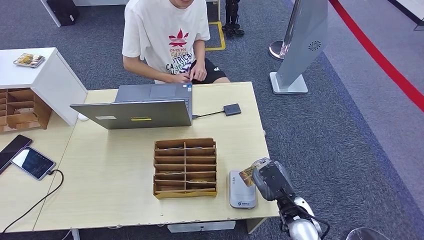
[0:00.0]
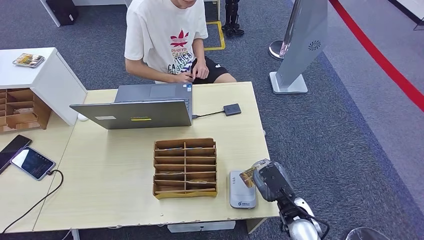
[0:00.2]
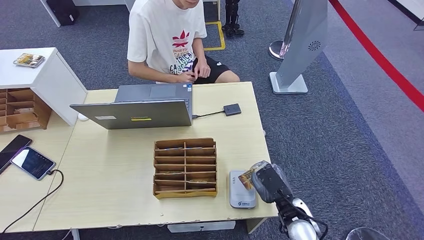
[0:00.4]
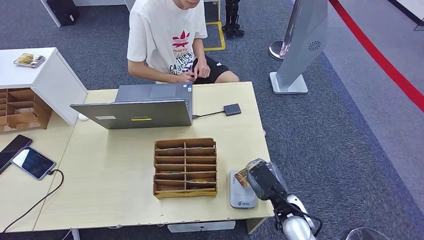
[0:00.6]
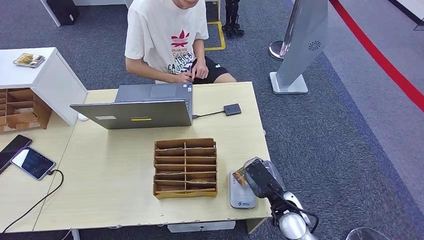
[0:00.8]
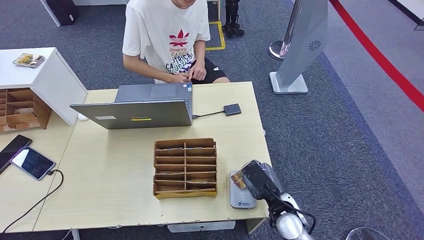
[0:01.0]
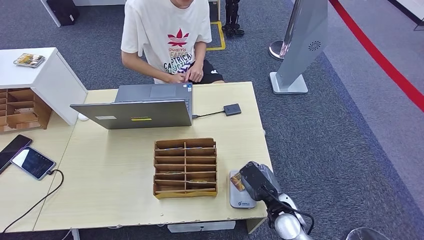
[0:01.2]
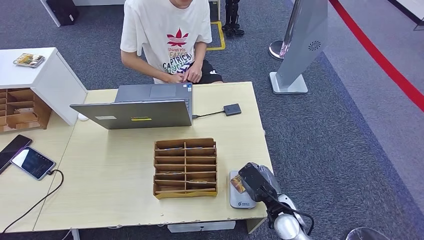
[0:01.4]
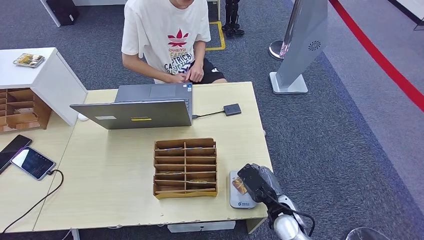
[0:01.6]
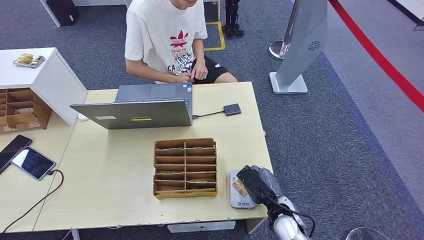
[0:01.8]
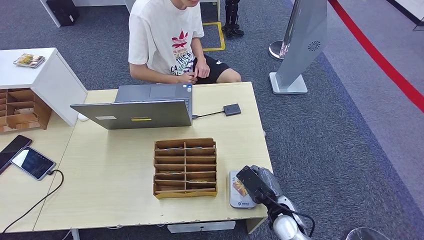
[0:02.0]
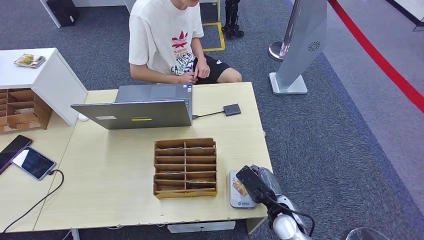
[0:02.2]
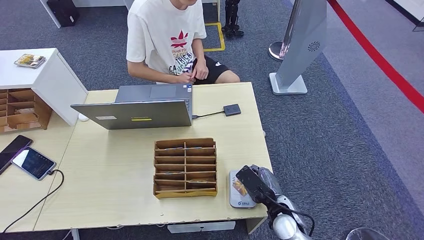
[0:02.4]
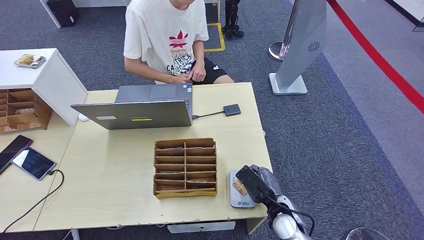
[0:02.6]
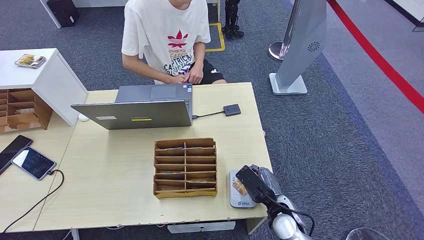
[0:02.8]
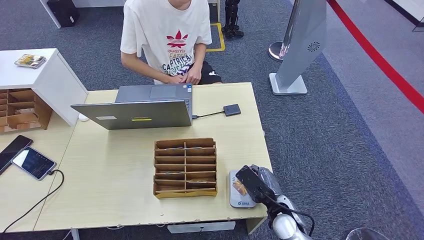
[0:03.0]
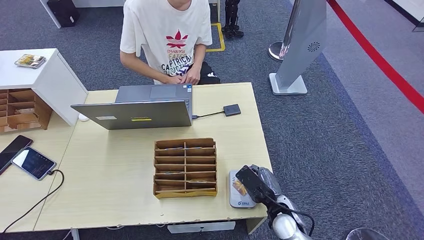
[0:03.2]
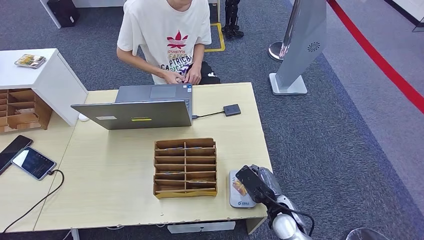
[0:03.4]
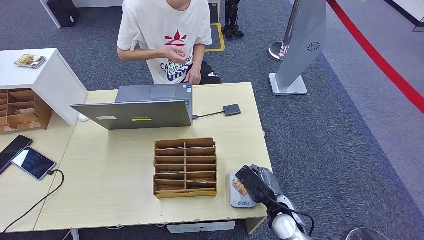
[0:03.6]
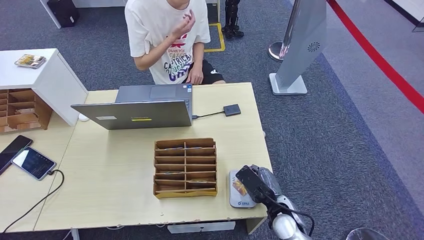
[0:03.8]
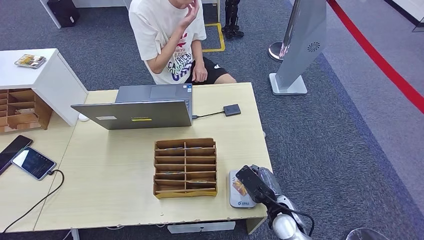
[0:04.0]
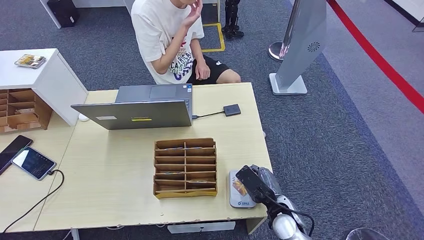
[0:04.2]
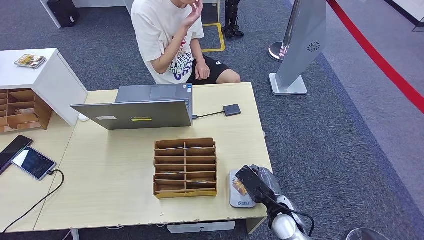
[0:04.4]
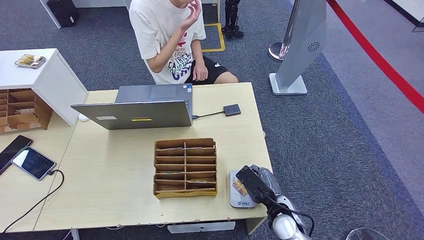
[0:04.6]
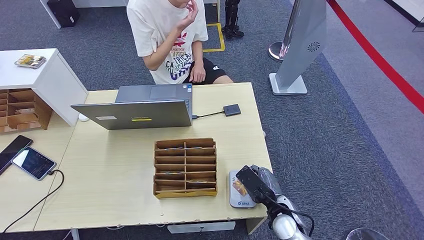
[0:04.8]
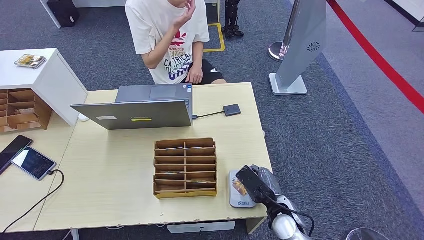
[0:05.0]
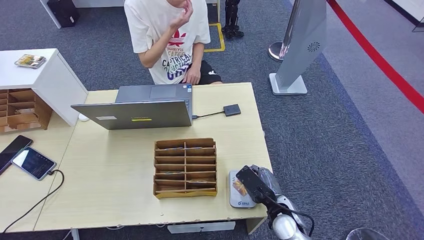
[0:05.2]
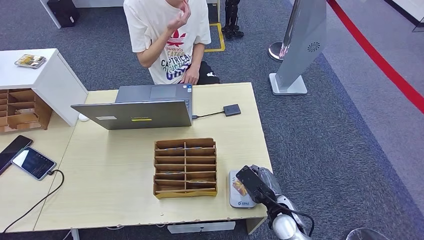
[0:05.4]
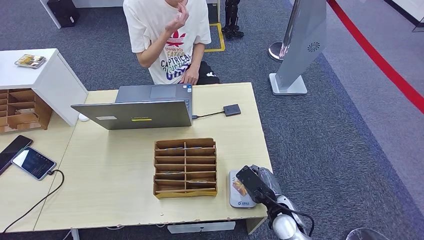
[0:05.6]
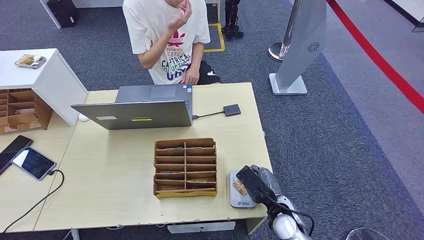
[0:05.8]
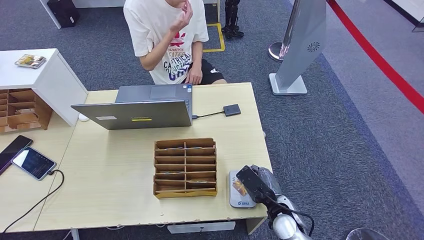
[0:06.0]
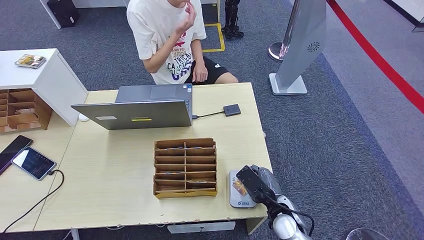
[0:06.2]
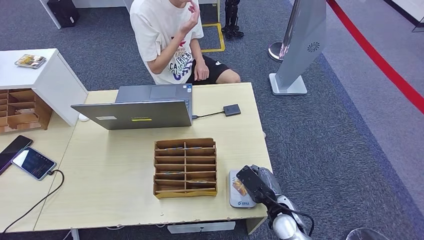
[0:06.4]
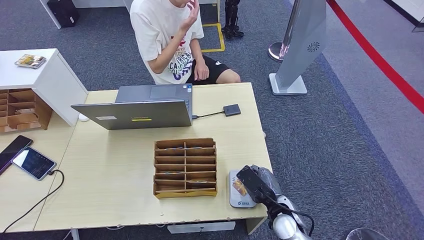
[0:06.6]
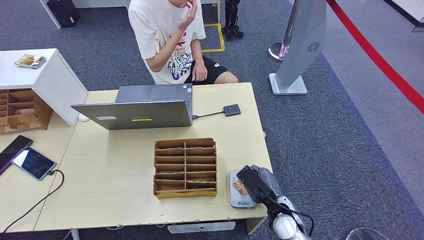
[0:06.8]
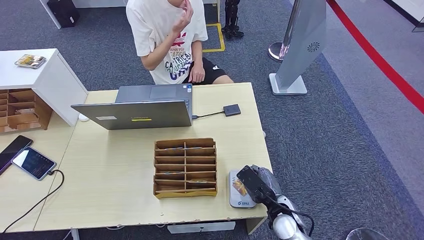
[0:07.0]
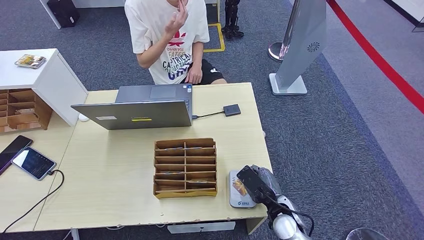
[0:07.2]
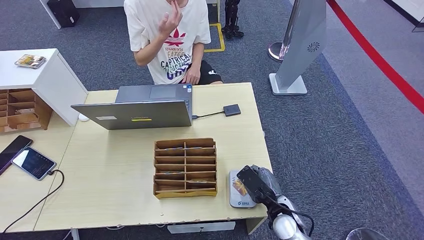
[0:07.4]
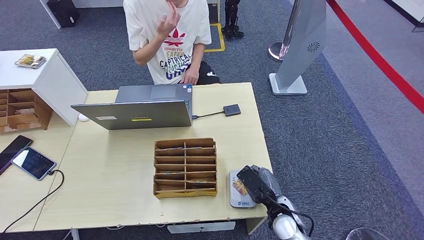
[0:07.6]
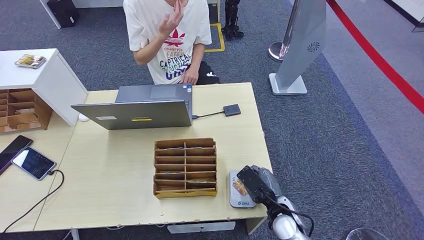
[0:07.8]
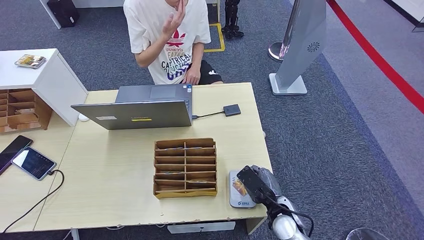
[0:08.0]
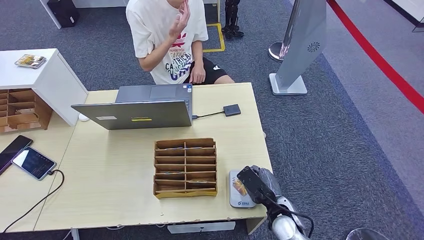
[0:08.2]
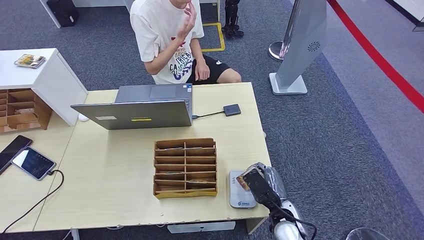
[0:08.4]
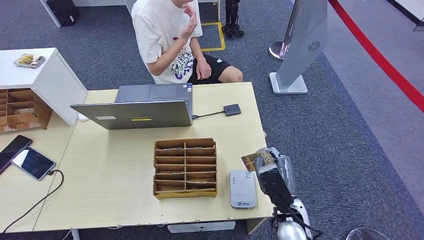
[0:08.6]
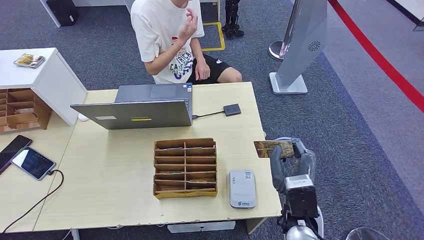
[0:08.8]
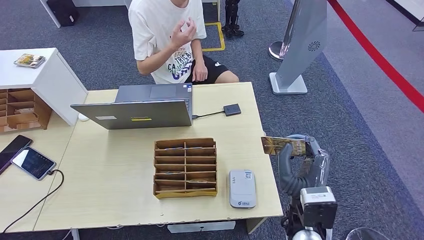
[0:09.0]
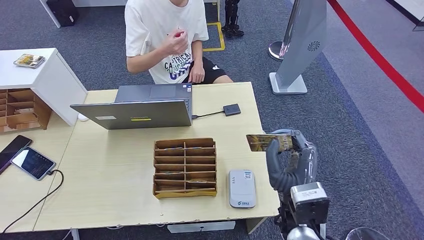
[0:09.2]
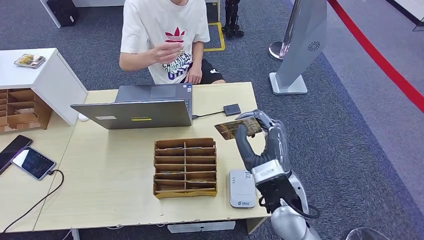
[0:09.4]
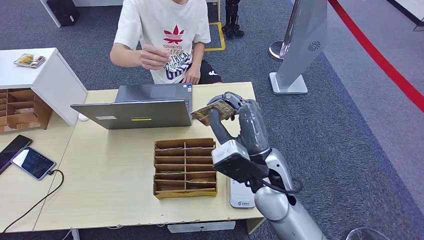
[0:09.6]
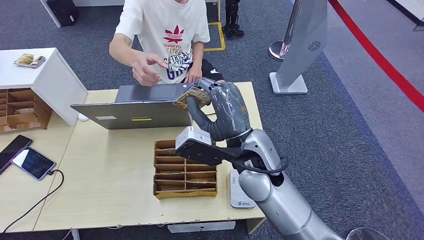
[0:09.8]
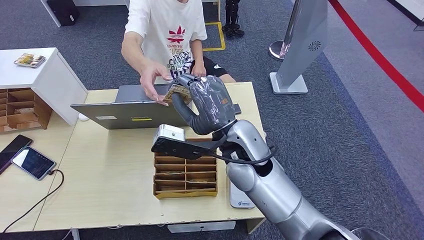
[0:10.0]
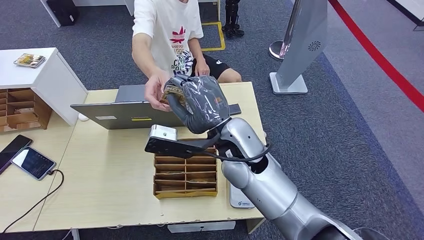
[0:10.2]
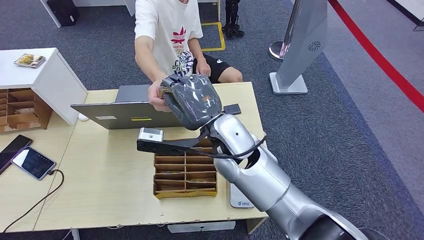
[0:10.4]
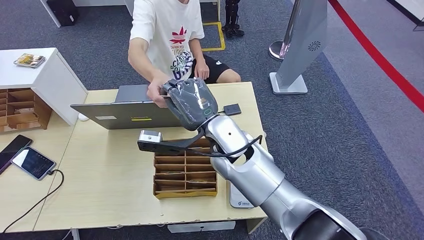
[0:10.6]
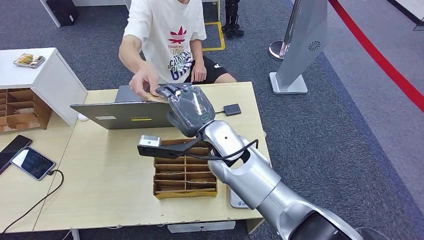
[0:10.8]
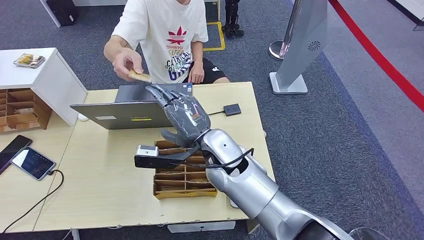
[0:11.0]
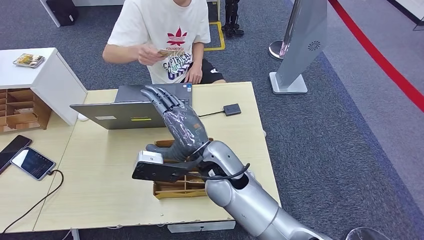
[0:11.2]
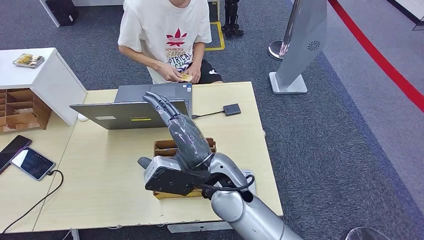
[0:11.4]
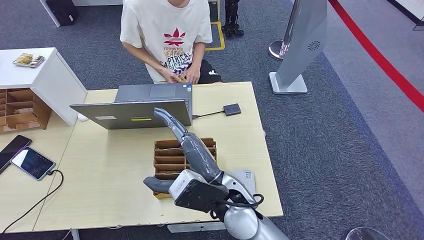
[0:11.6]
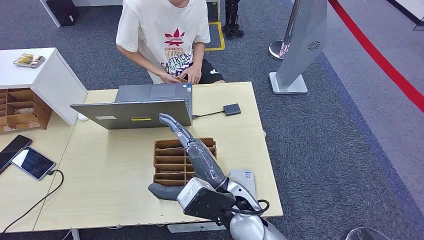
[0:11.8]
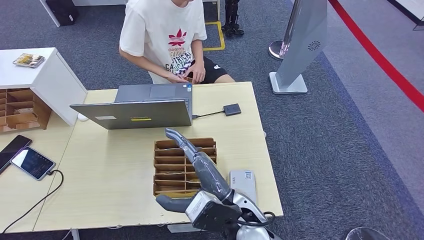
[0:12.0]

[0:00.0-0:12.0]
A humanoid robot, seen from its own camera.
Step, 2.0 to 11.2 s: Hand the ID card to the person.
0.0 to 1.6 s: The hands move only a little.
1.6 to 7.6 s: Both hands stay about where they are.
7.6 to 9.0 s: The right hand heads upward, covering about 15 cm.
9.0 to 10.4 s: The right hand moves to the left, forward and upward, about 25 cm.
10.4 to 12.0 s: The right hand heads backward and downward, covering about 15 cm.

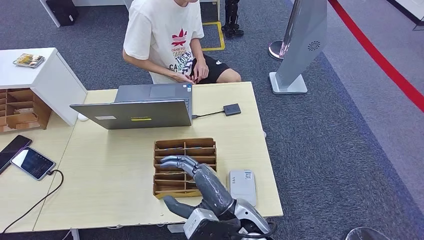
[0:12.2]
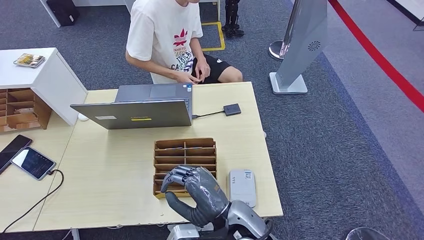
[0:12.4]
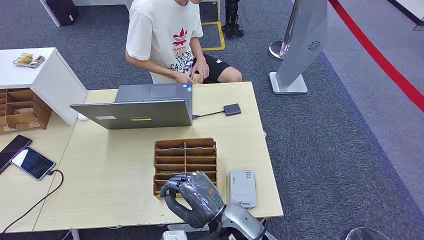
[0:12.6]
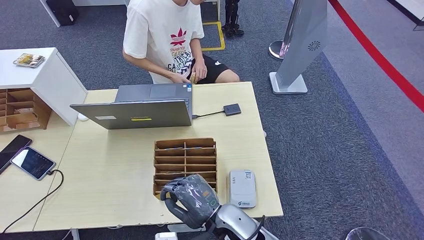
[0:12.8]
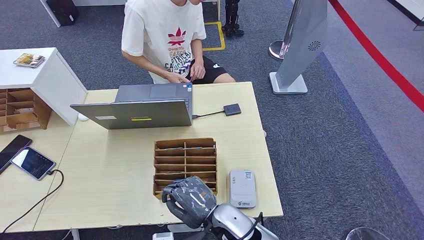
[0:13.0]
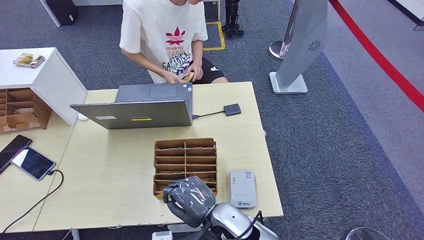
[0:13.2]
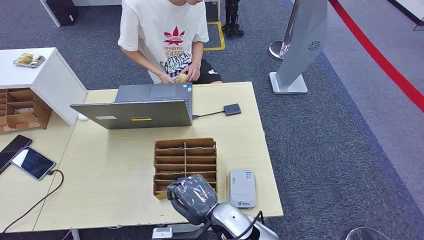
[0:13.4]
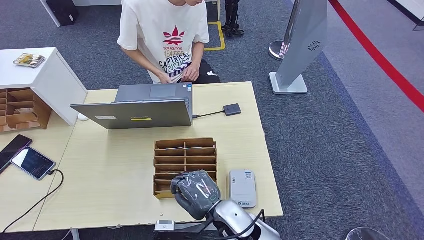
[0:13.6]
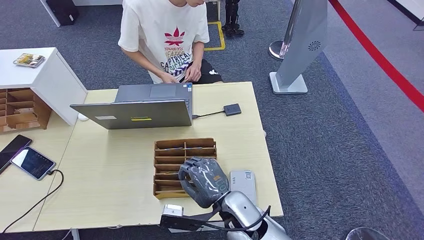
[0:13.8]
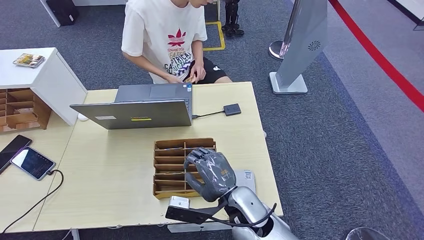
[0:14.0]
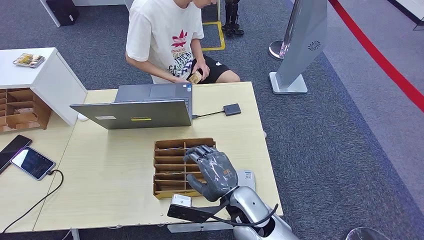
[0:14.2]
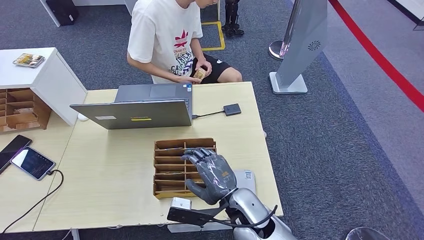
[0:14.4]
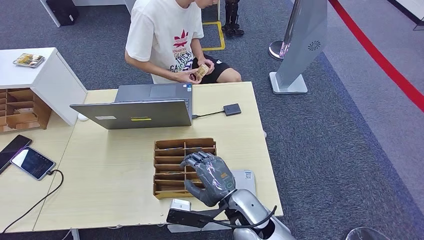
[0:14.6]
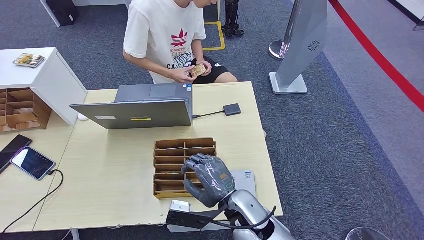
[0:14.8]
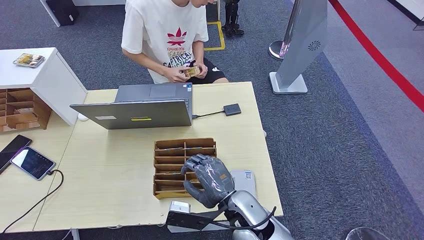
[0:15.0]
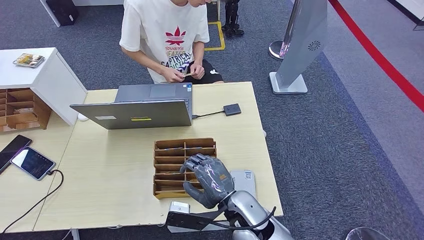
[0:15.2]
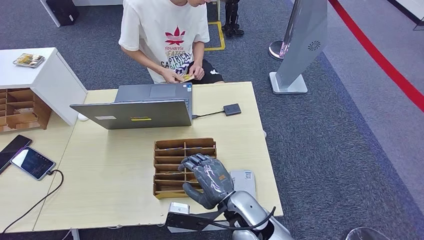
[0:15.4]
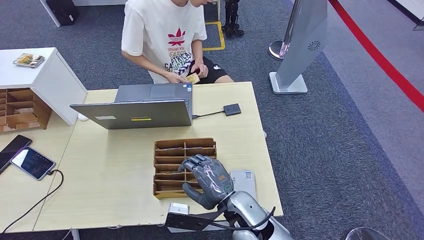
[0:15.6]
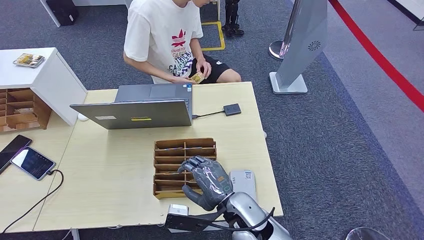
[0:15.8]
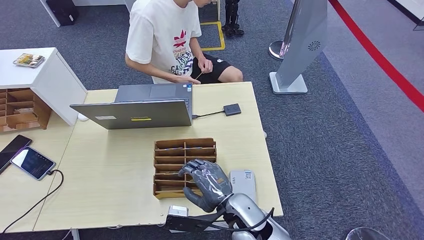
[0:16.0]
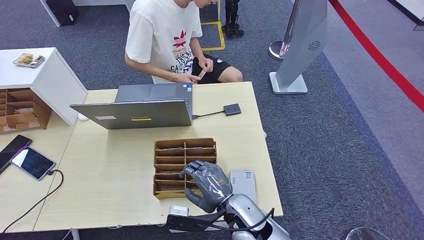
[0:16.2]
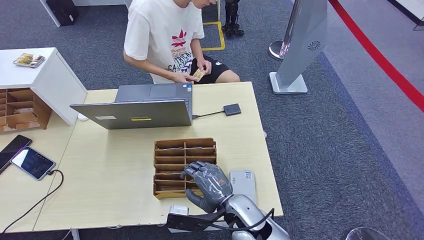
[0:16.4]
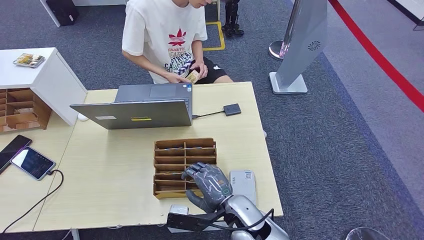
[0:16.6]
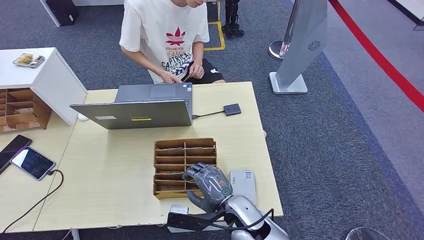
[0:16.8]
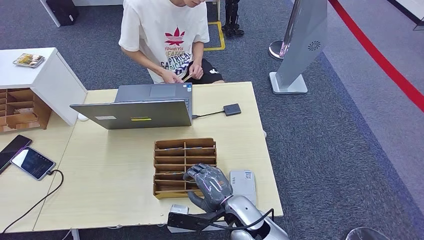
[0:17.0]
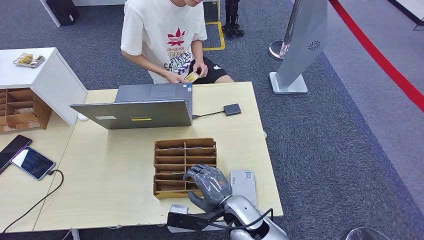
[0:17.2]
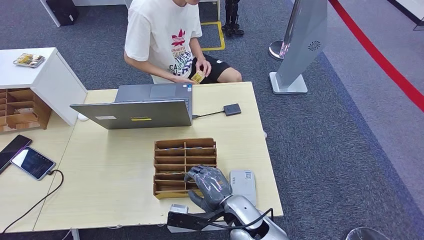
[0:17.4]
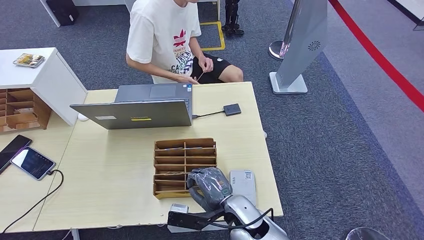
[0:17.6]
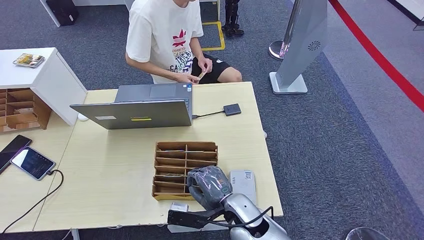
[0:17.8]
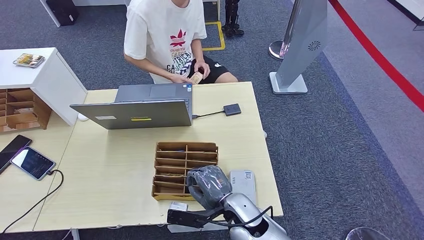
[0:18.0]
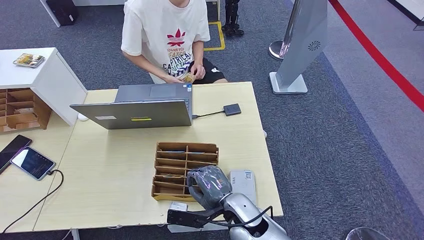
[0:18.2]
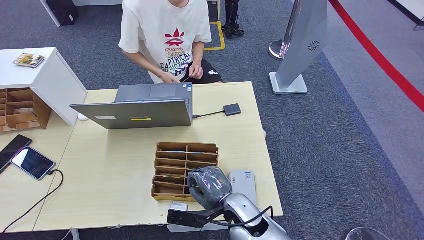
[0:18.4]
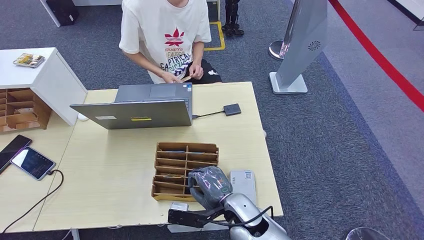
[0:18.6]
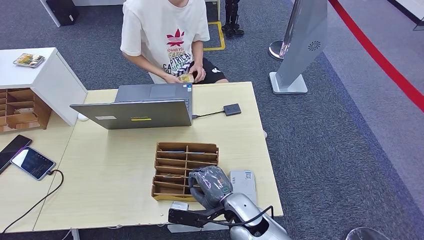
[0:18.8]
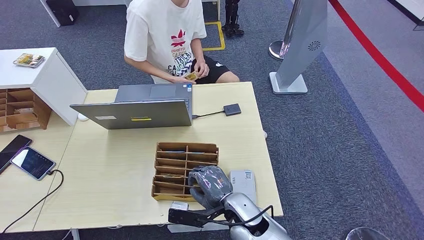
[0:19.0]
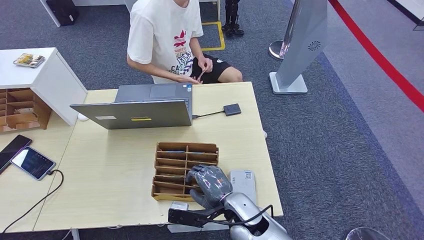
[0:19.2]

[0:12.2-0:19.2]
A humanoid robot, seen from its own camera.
12.2 to 13.6 s: The right hand travels downward by roughly 5 cm.
13.6 to 17.8 s: The hands stay close to where they were, moving slightly.
17.8 to 19.2 s: Both hands stay put.
